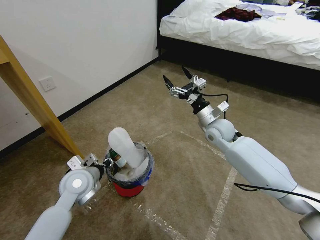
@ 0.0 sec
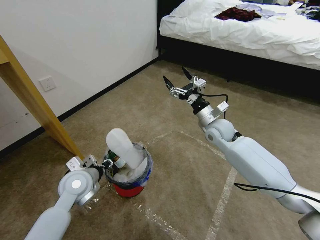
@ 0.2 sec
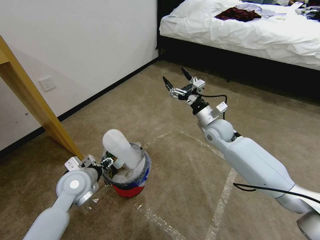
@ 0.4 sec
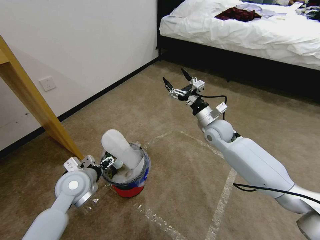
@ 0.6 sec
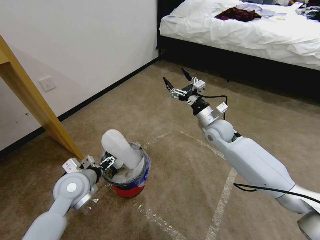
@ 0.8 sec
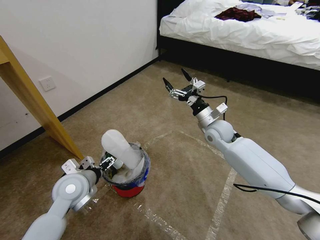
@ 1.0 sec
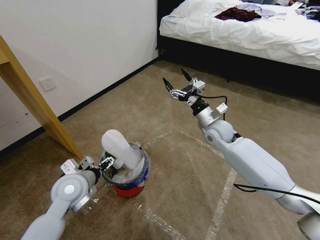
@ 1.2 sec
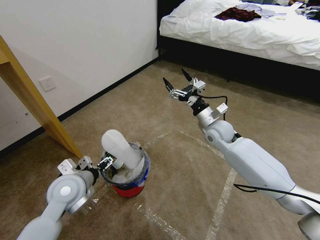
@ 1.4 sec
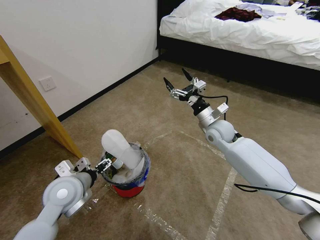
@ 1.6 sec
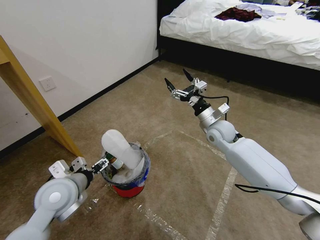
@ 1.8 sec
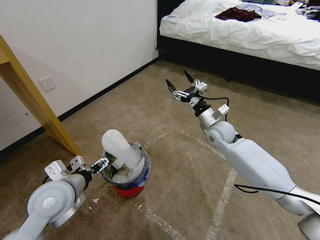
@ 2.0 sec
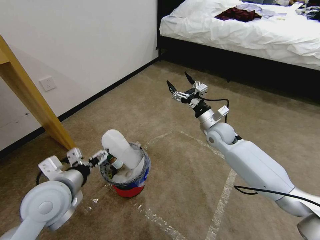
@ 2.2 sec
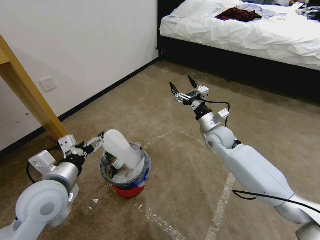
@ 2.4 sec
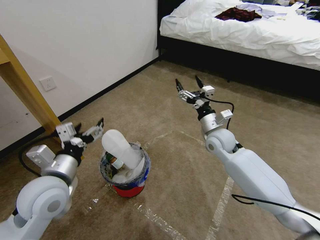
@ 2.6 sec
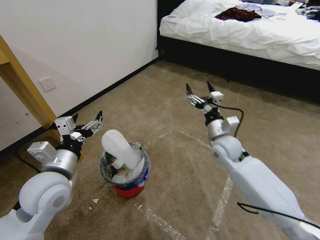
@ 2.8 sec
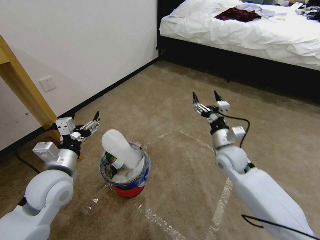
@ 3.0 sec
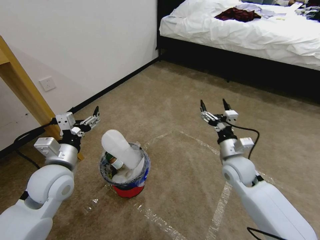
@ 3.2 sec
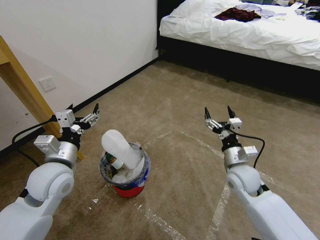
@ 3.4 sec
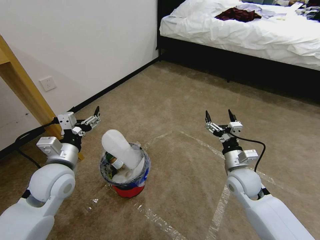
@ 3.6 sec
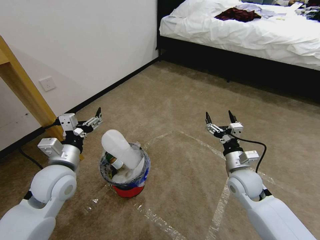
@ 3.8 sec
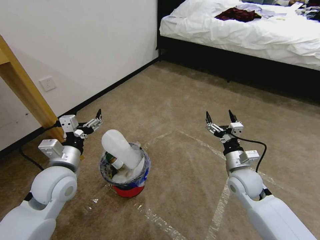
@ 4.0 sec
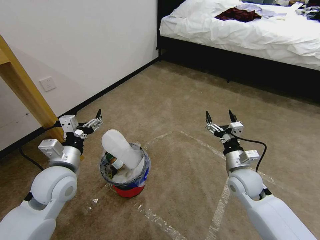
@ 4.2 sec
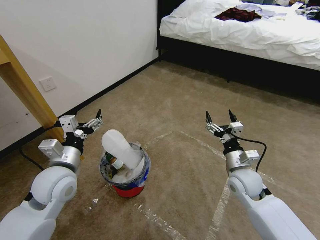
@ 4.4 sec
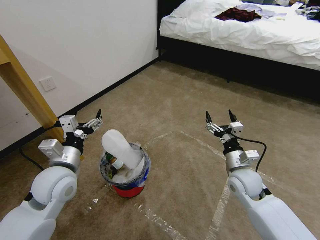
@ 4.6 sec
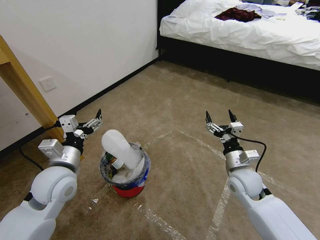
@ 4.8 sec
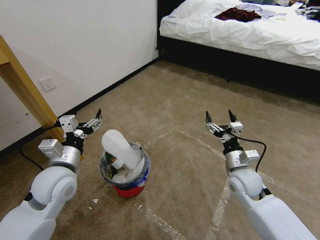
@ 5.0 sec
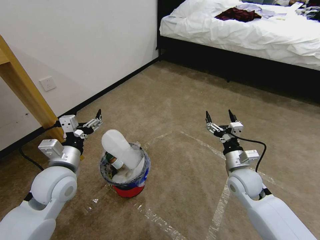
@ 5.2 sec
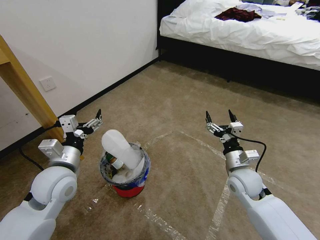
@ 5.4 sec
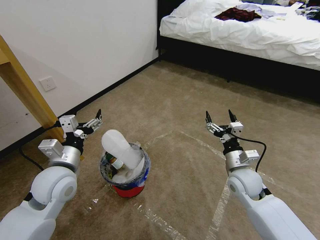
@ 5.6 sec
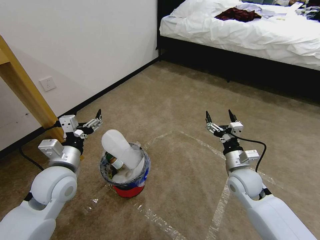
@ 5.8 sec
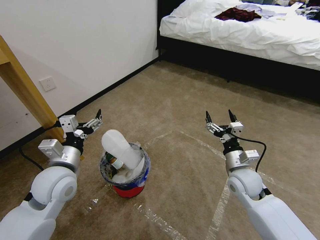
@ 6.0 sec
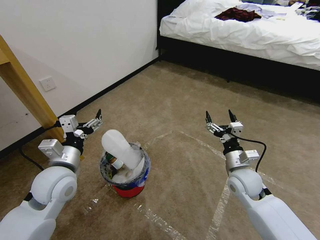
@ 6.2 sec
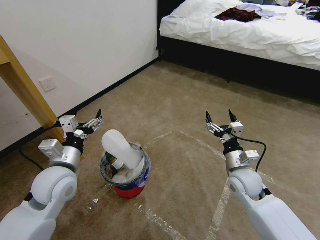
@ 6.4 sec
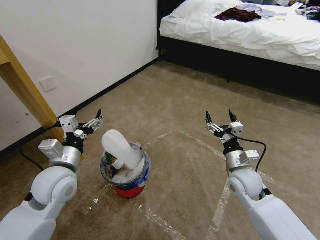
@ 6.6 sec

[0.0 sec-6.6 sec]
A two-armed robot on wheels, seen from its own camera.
Task of the whole recording: Pick up the trash bin and place the garbage on the floor into it.
0.0 sec to 1.6 sec: The left gripper opens.
1.6 sec to 3.2 sec: The left gripper ends up about 5 cm from where it was. The right gripper heads backward and downward, covering some 15 cm.
3.2 sec to 5.0 sec: The grippers stay close to where they were, moving slightly.
5.0 sec to 6.6 sec: Both grippers stay about where they are.
